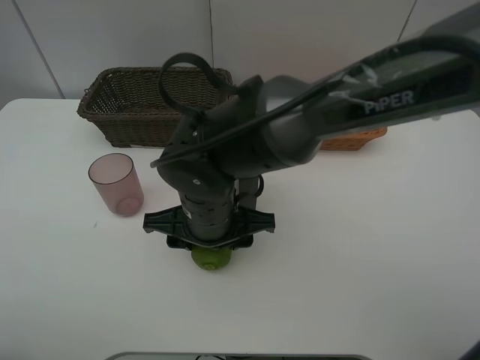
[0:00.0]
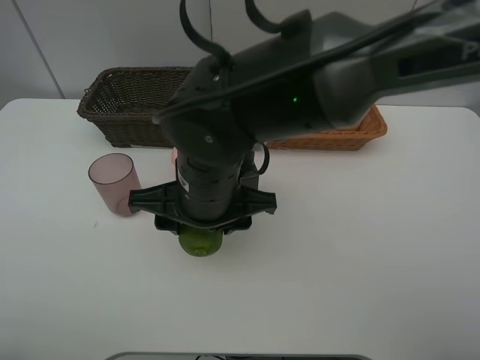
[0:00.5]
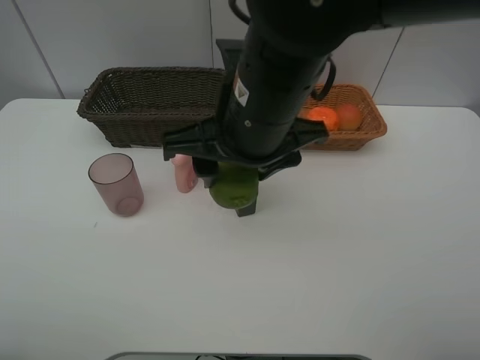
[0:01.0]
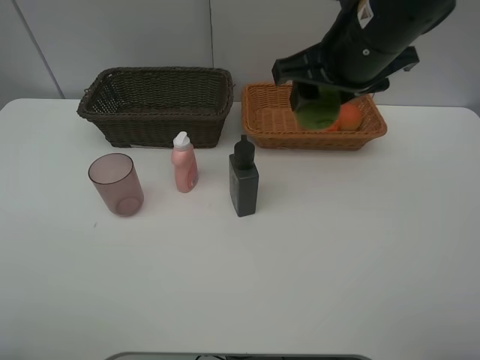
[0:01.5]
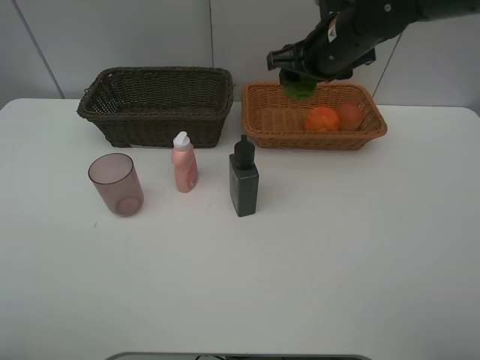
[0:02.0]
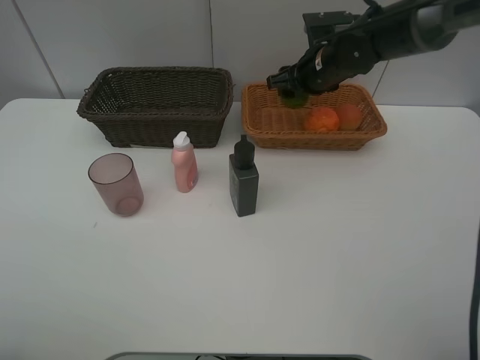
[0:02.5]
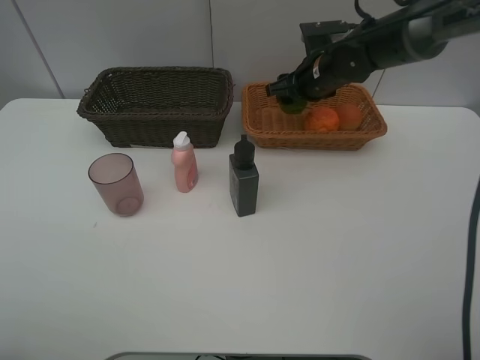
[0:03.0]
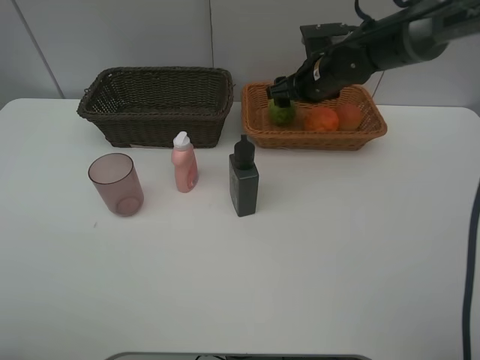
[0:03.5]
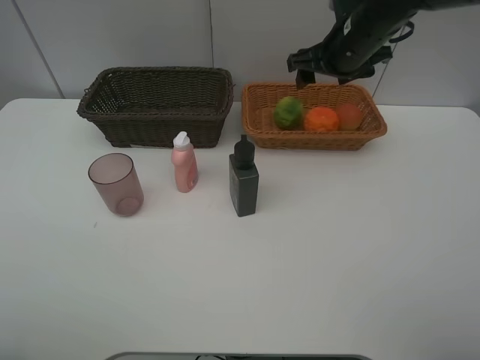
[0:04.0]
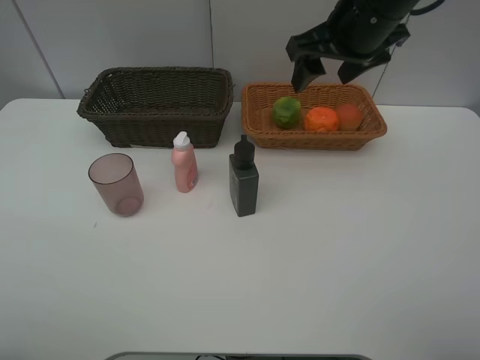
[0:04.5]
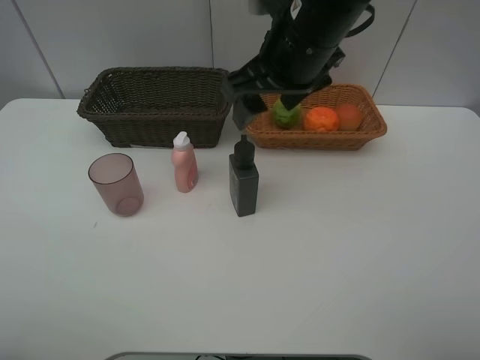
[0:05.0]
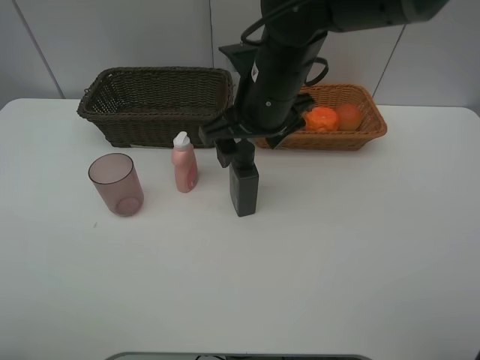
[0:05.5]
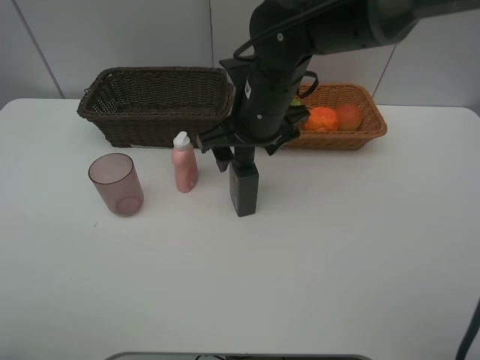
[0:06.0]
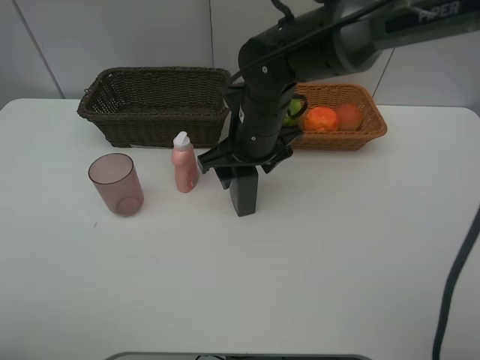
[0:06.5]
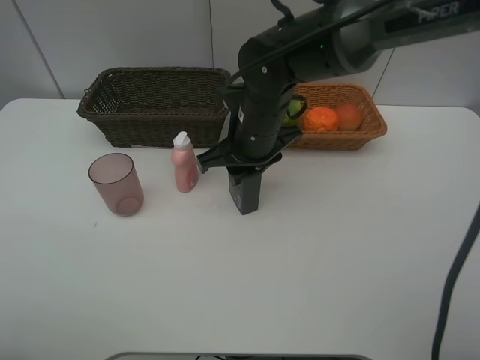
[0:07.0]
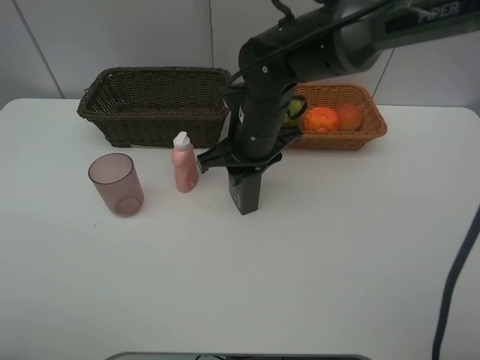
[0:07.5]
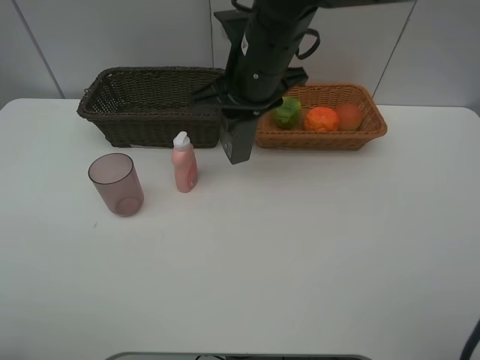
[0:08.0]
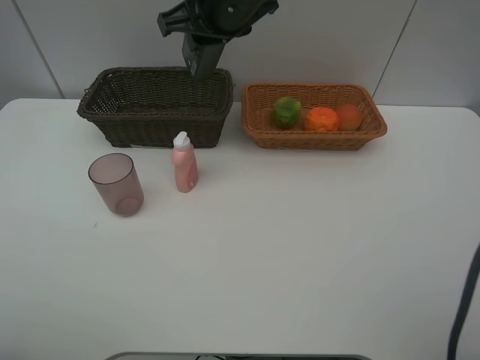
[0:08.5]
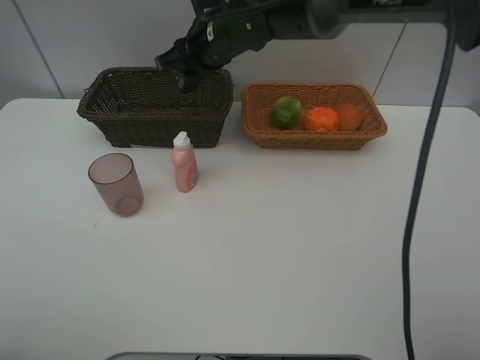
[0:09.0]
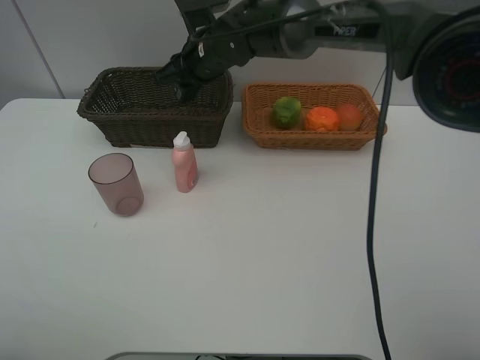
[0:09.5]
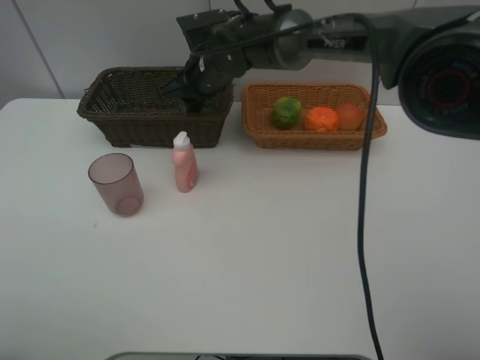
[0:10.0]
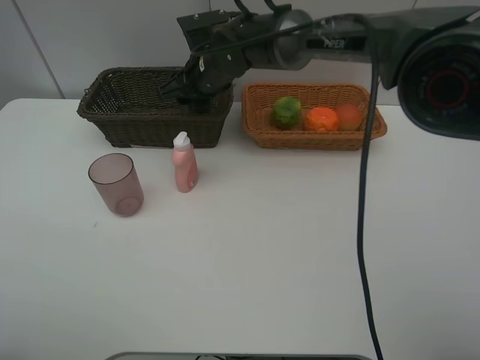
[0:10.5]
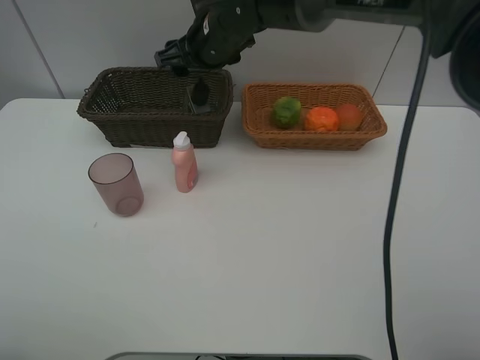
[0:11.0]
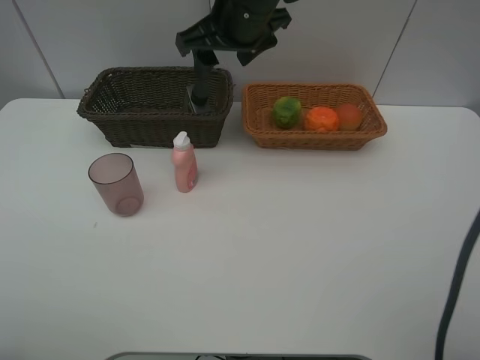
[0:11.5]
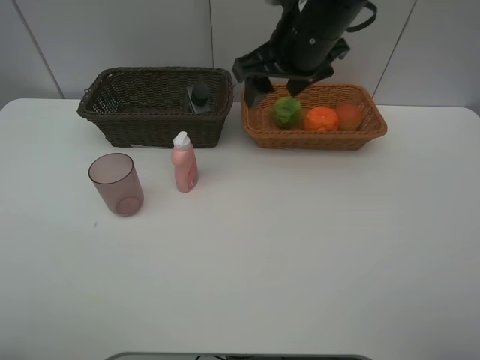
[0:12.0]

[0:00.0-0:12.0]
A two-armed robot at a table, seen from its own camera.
Task of the whole recording: place multiple objects separately in different baskets.
0:00.0 to 0:02.0: The right gripper goes some 25 cm forward, to the right and upward.
0:02.0 to 0:04.0: The right gripper moves some 5 cm downward and comes back.
0:04.0 to 0:06.0: The right gripper goes roughly 15 cm to the left and backward.
0:06.0 to 0:08.0: The right gripper heads upward, covering roughly 5 cm, and closes its fingers.
0:08.0 to 0:10.0: The right gripper moves forward, downward and to the left, about 15 cm.
0:10.0 to 0:12.0: The right gripper shifts about 20 cm to the right, upward and backward, and opens its fingers.

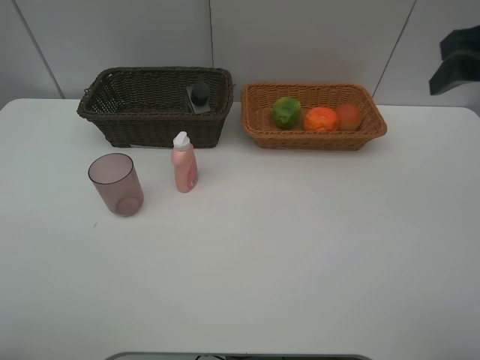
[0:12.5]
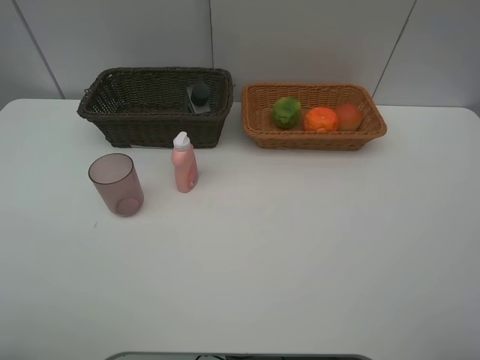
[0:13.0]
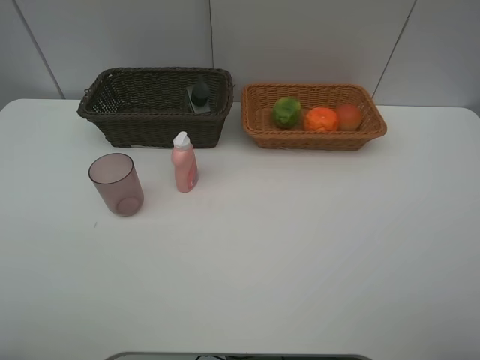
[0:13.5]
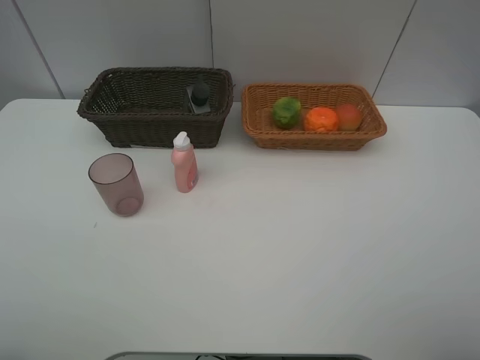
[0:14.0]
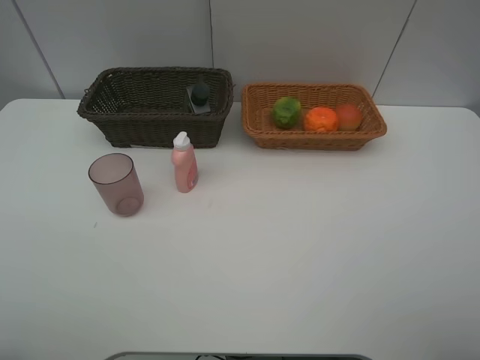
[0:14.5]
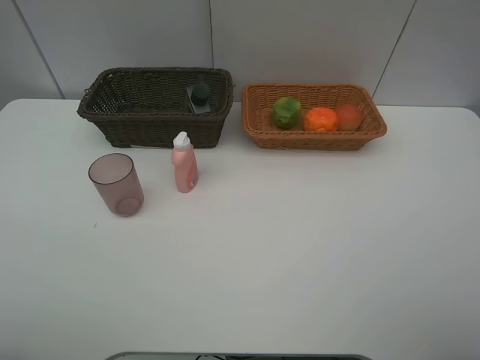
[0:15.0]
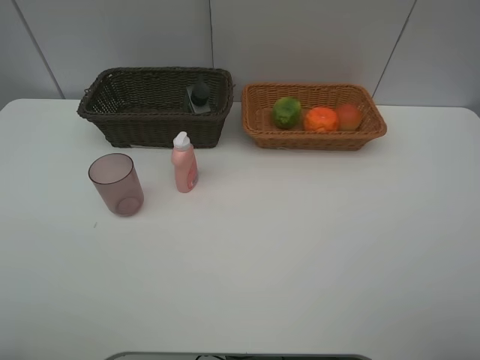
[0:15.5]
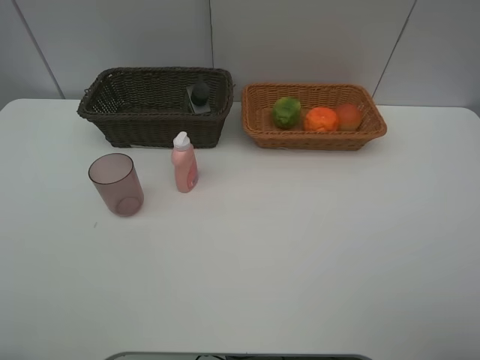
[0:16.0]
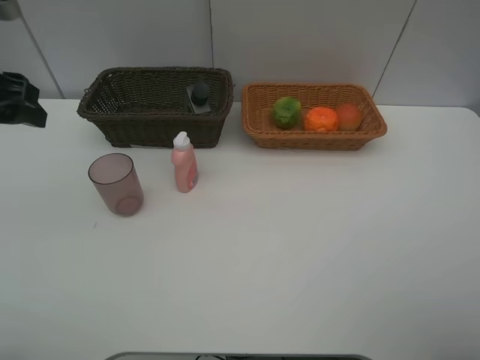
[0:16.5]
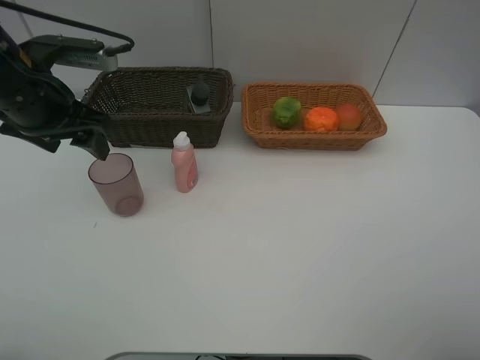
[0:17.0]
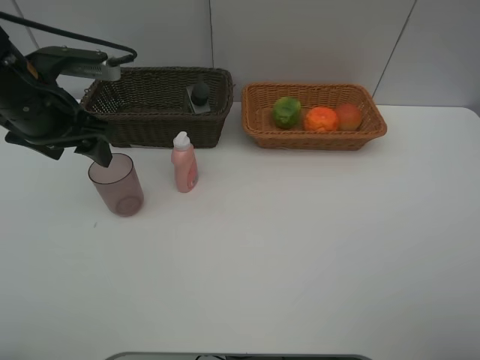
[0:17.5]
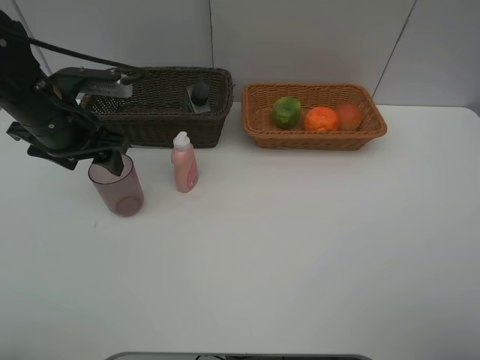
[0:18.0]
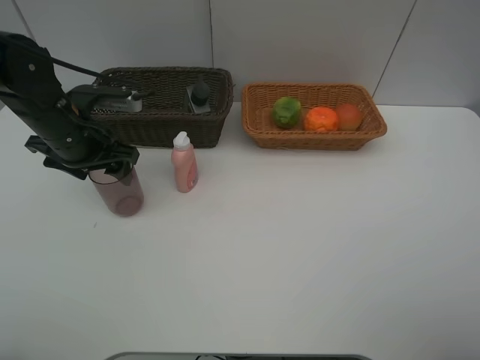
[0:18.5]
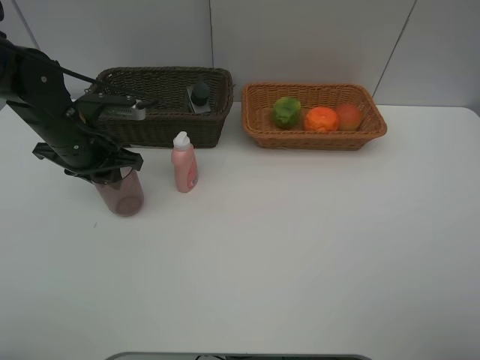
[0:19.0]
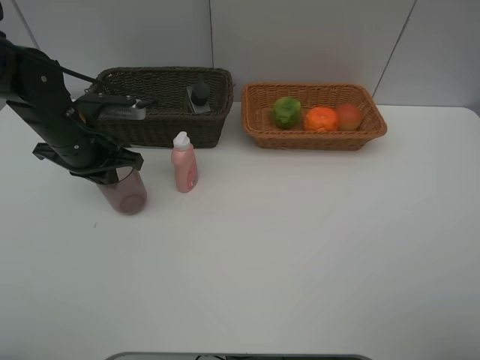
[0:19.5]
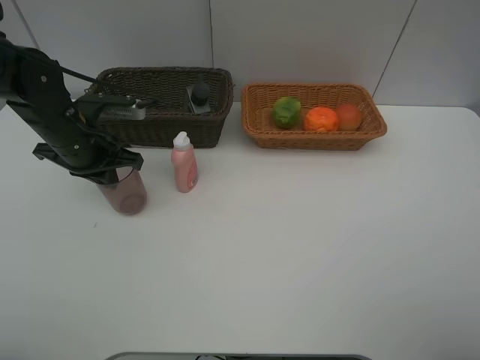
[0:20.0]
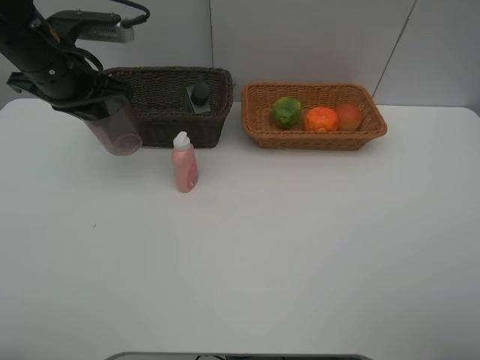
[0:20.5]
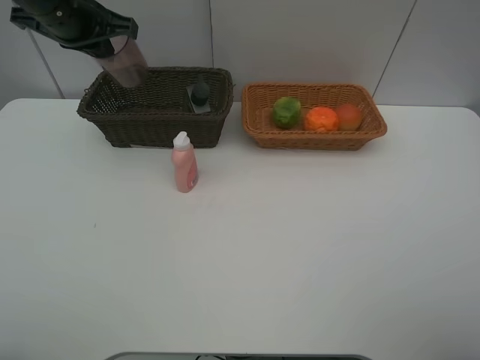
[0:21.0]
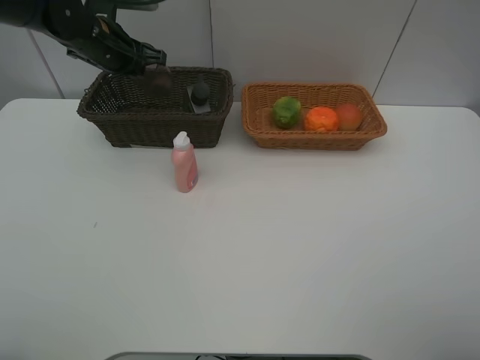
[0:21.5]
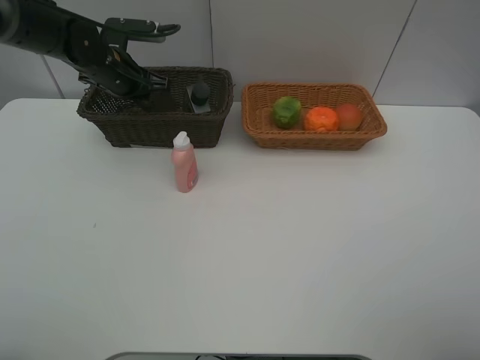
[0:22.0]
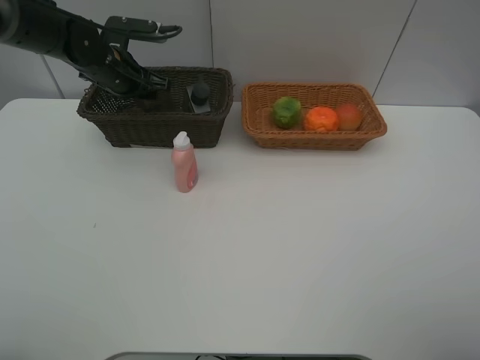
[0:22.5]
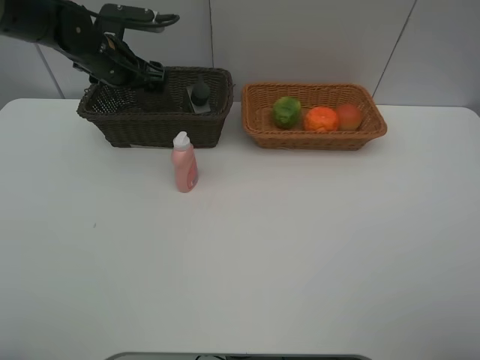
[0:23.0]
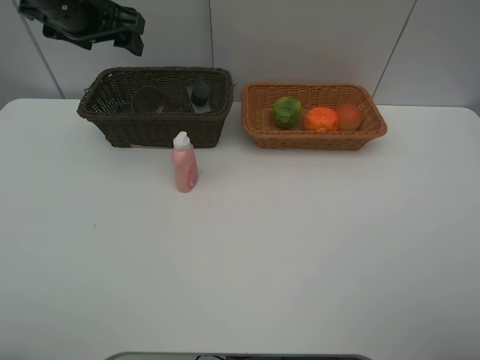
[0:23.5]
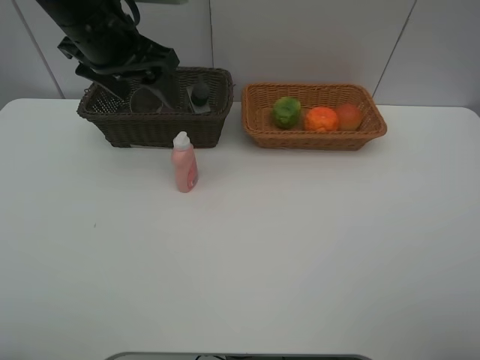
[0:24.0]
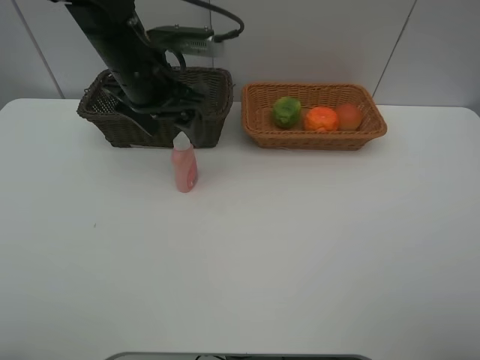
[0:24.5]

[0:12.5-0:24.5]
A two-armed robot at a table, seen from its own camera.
Task of the whole recording: place multiple objects separately in different baskets.
0:12.5 to 0:14.5: The right gripper goes about 25 cm backward.
0:14.5 to 0:16.5: The left gripper heads forward, covering some 25 cm.
0:16.5 to 0:18.5: The left gripper moves downward and forward, about 15 cm.
0:18.5 to 0:20.5: The left gripper goes about 10 cm upward, and closes its fingers.
0:20.5 to 0:22.5: The left gripper travels forward and downward by some 15 cm, and opens.
0:22.5 to 0:24.5: The left gripper heads backward, to the right and upward, covering about 15 cm, and opens up.

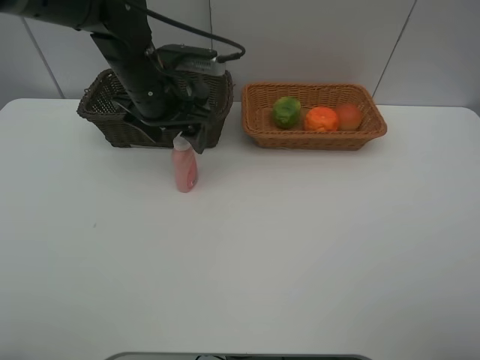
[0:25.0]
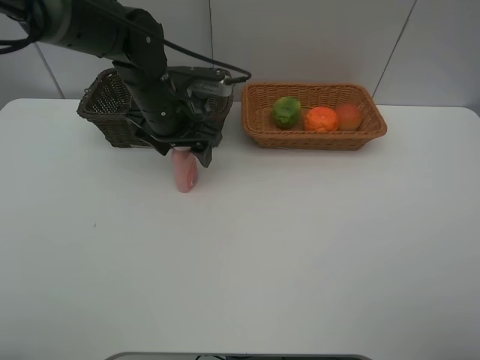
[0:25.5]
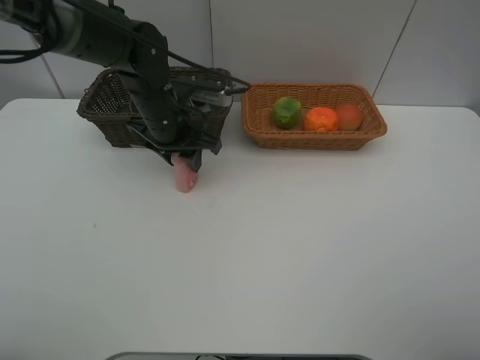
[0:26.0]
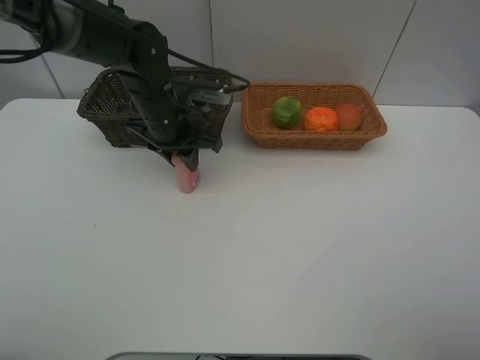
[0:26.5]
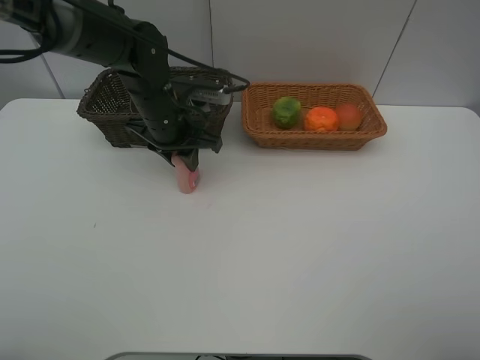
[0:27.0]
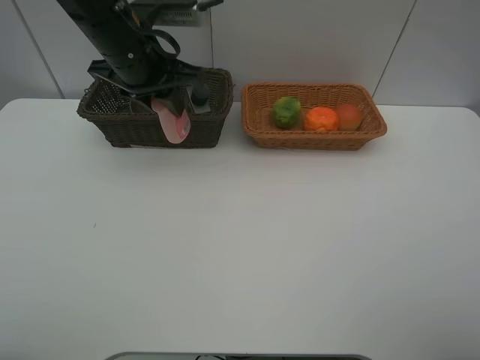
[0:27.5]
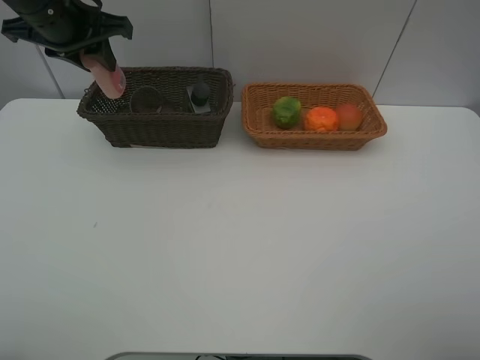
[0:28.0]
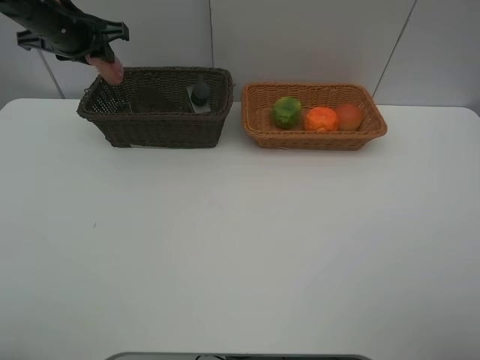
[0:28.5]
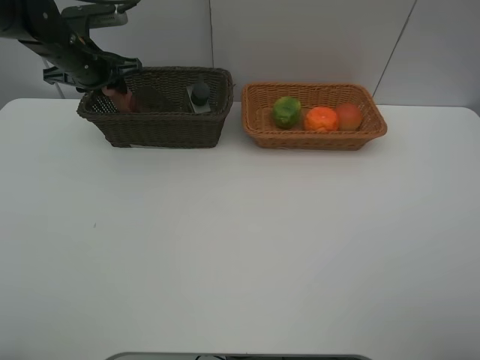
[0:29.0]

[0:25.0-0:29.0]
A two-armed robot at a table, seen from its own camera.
Task of the whole recording: place multiple objects separately in different baskets.
0:25.0 to 0:27.0: The left gripper closes up.
0:27.0 to 0:29.0: The left gripper travels to the left and forward by roughly 15 cm.
